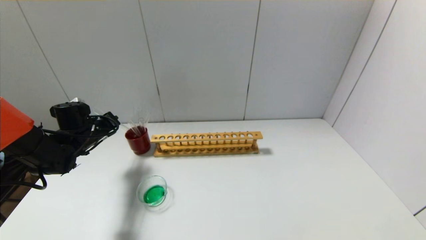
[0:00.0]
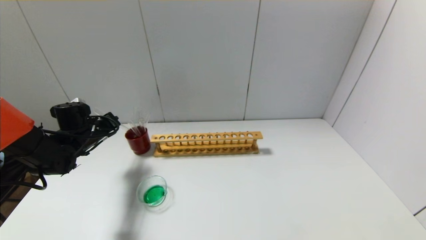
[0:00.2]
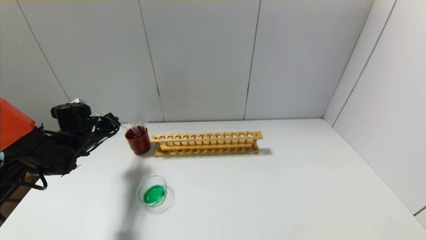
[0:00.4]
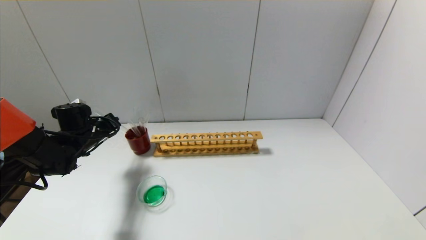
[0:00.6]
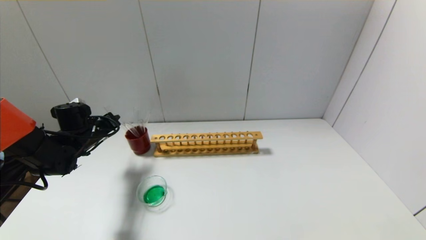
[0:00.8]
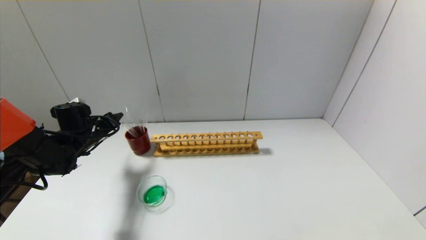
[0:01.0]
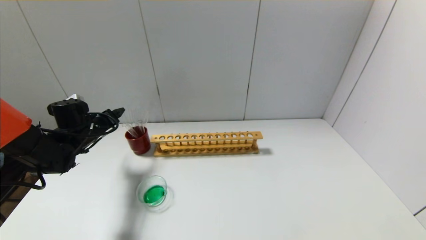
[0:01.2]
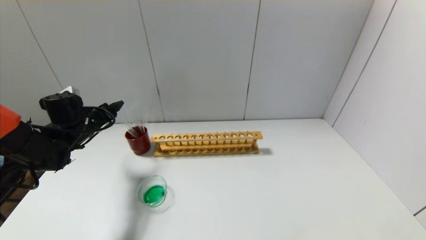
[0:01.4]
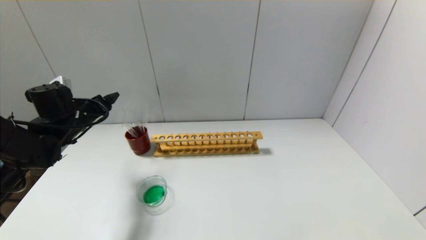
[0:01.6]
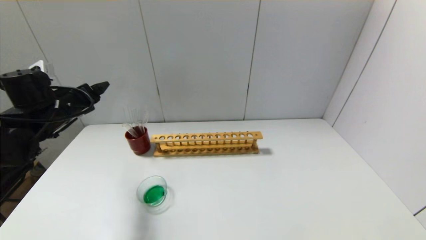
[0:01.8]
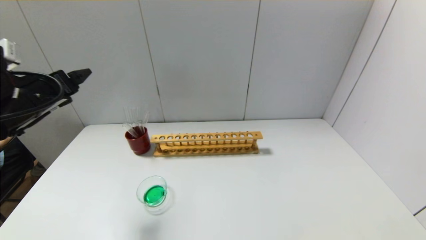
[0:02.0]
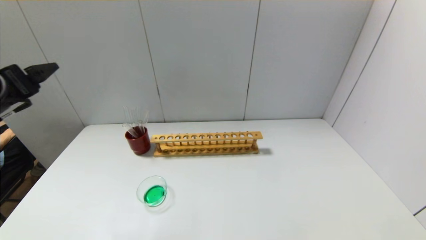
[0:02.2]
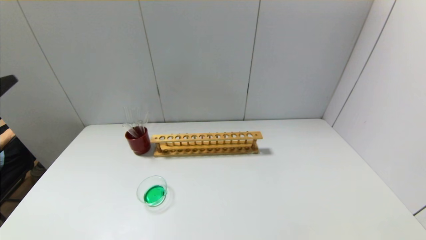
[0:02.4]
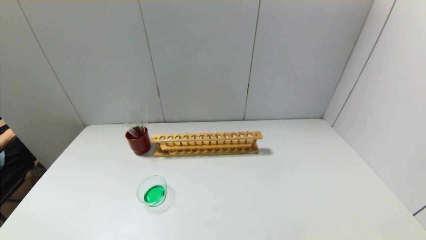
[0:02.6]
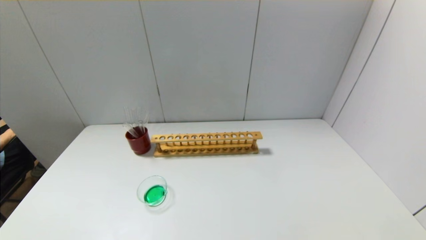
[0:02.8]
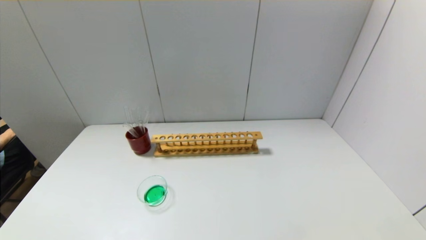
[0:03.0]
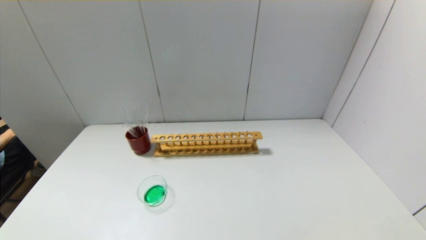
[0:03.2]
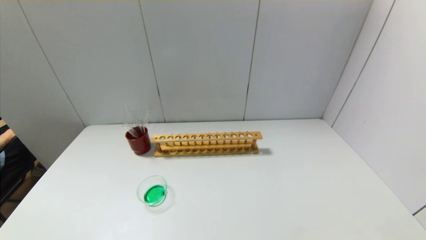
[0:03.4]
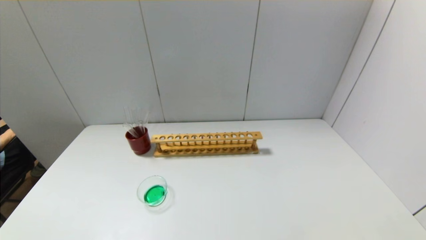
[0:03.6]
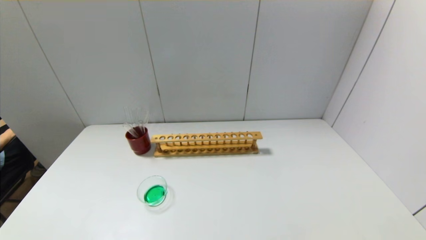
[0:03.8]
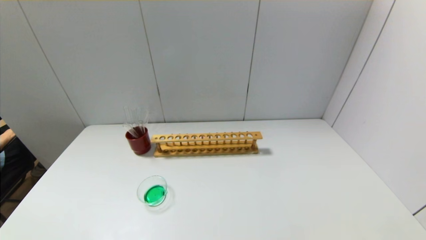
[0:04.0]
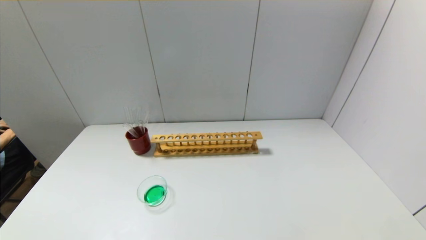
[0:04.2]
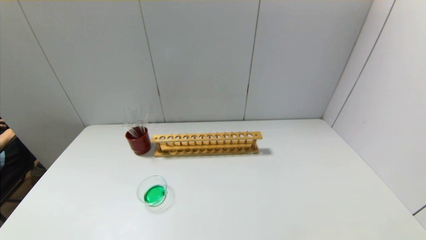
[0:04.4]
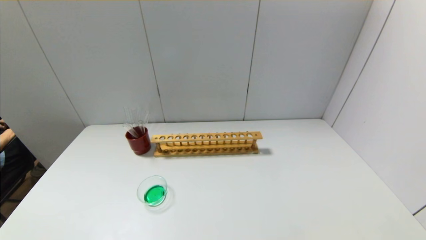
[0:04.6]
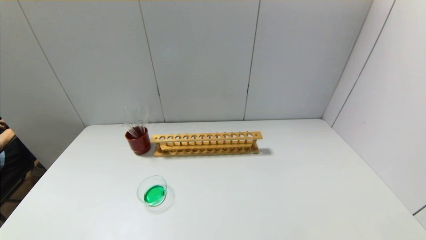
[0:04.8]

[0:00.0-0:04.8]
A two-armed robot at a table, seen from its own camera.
0:00.0 to 0:01.6: The left gripper travels upward by about 5 cm, and opens its fingers.
0:01.6 to 0:03.2: The left gripper travels backward by roughly 40 cm.

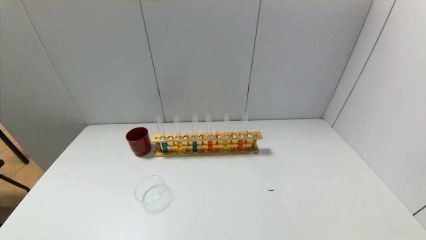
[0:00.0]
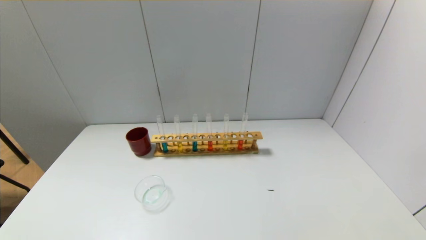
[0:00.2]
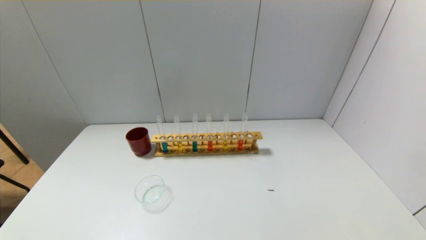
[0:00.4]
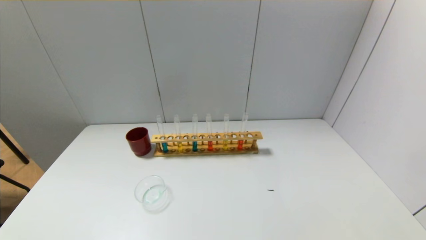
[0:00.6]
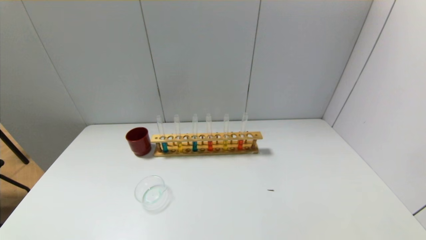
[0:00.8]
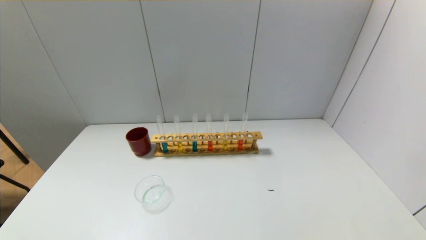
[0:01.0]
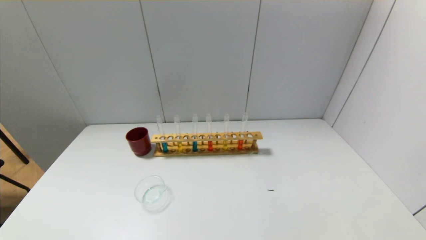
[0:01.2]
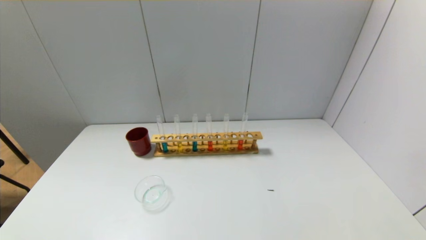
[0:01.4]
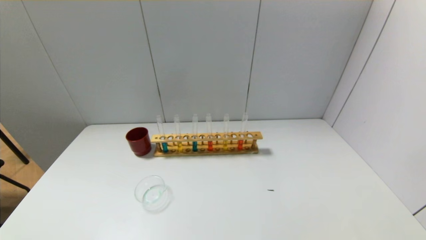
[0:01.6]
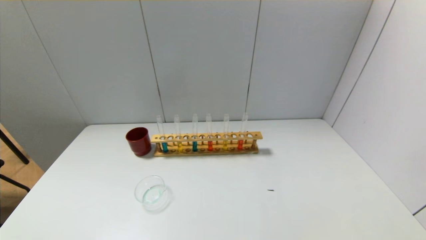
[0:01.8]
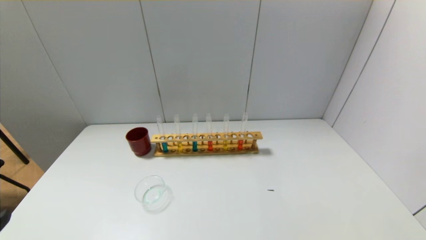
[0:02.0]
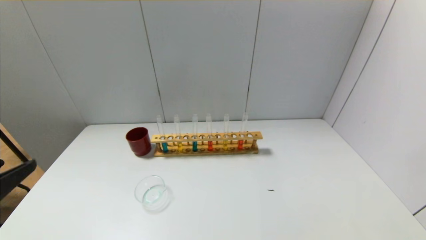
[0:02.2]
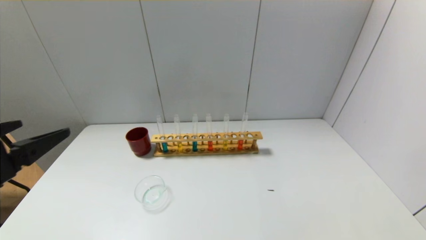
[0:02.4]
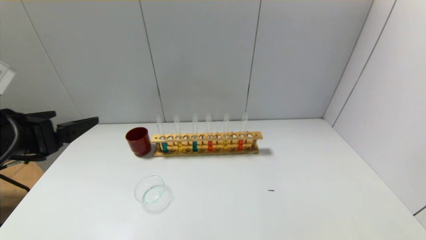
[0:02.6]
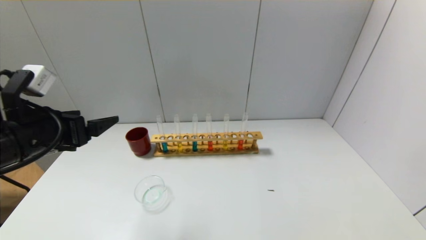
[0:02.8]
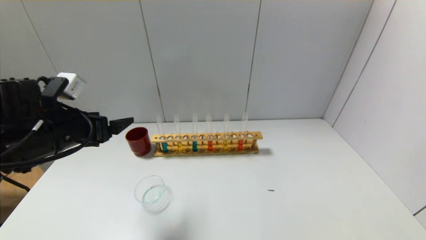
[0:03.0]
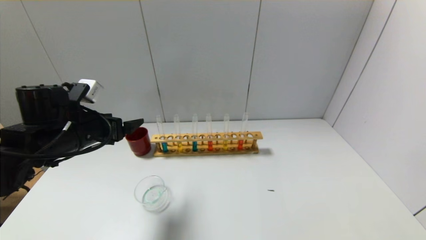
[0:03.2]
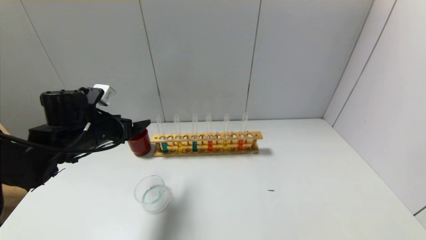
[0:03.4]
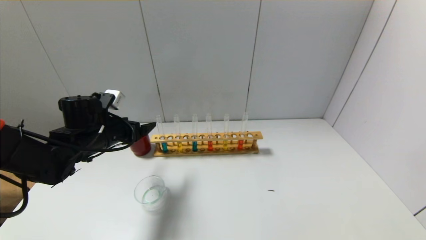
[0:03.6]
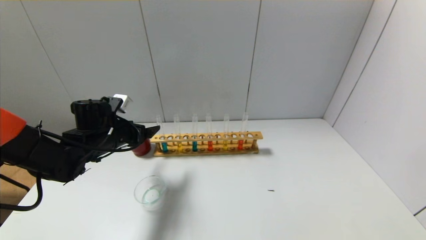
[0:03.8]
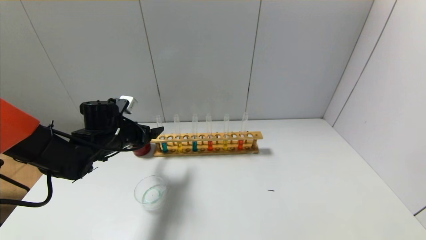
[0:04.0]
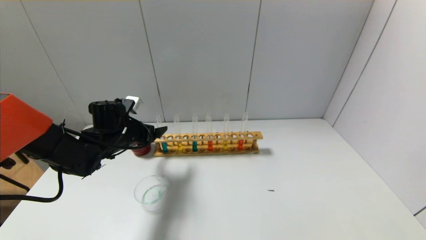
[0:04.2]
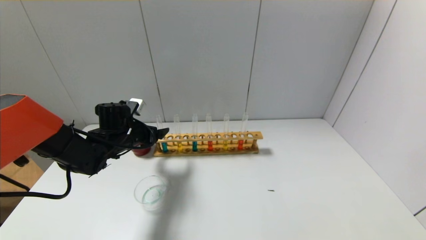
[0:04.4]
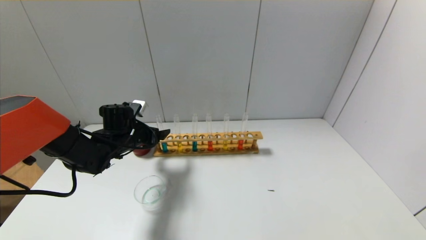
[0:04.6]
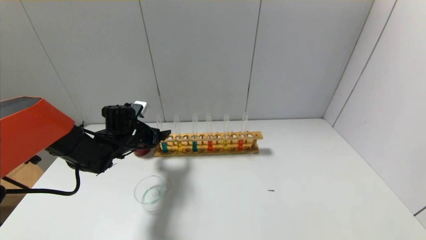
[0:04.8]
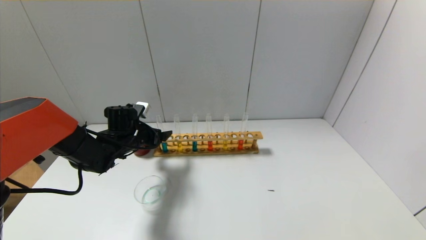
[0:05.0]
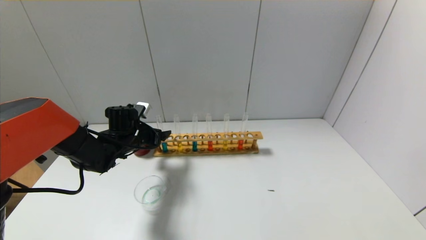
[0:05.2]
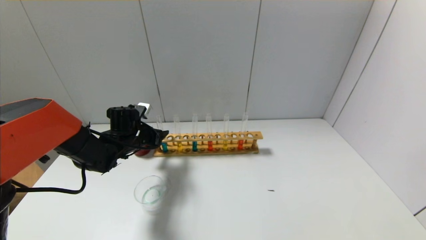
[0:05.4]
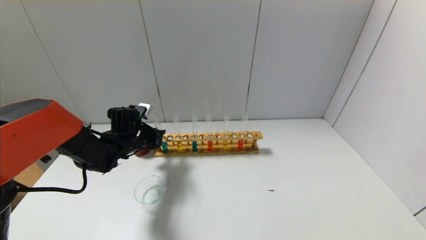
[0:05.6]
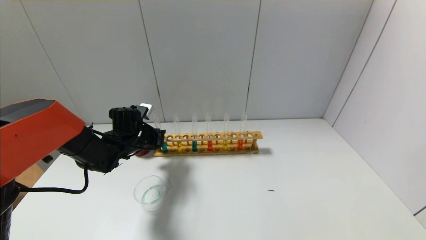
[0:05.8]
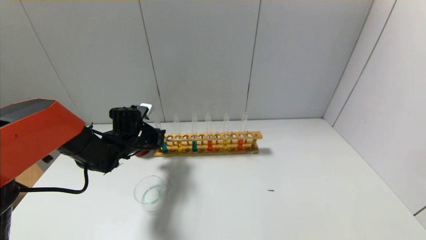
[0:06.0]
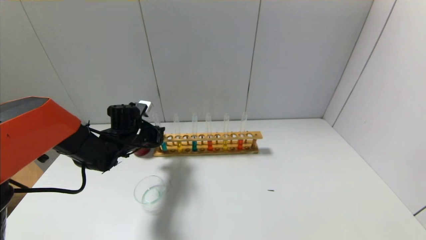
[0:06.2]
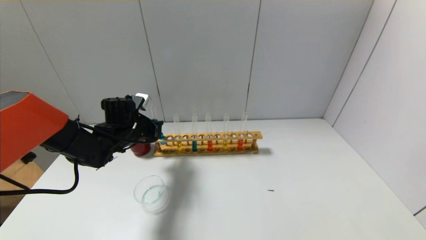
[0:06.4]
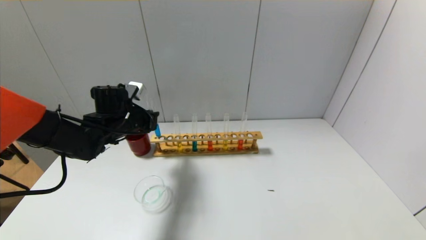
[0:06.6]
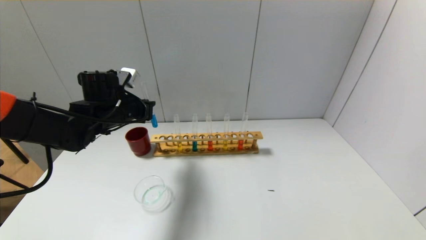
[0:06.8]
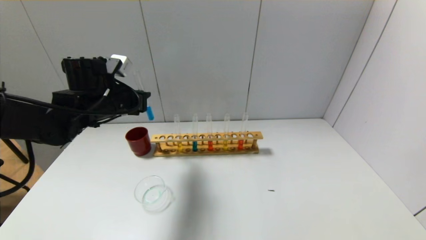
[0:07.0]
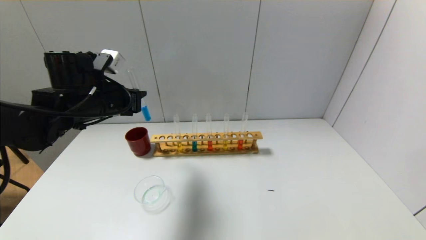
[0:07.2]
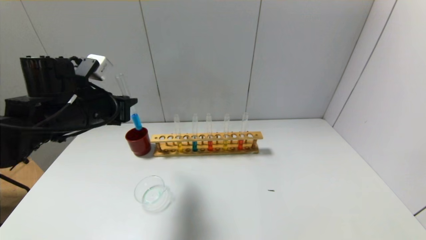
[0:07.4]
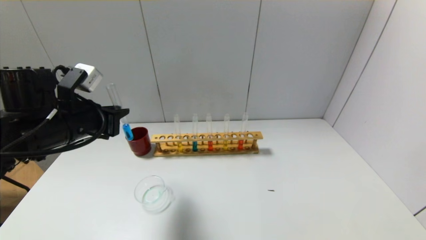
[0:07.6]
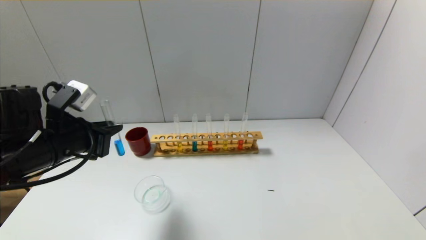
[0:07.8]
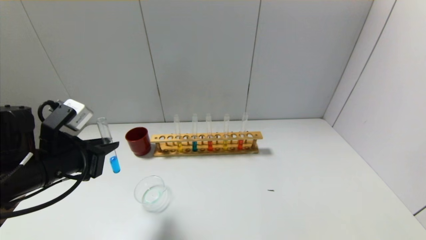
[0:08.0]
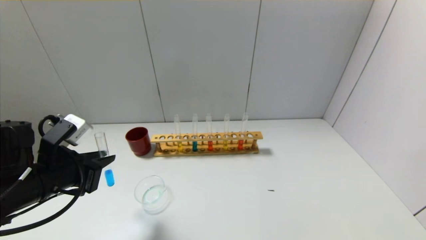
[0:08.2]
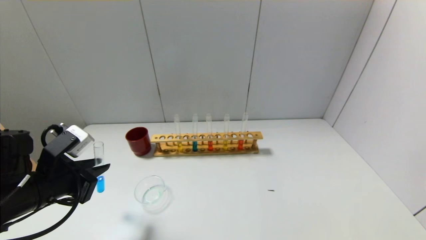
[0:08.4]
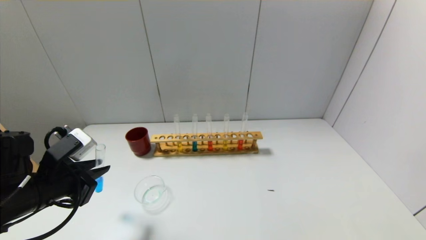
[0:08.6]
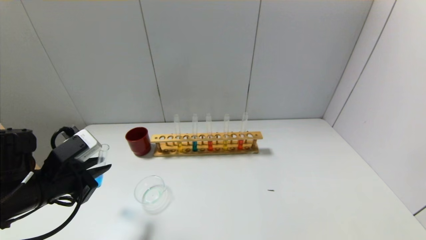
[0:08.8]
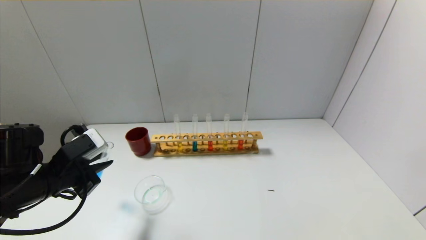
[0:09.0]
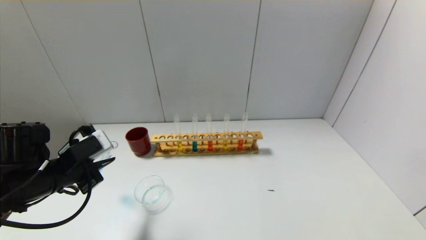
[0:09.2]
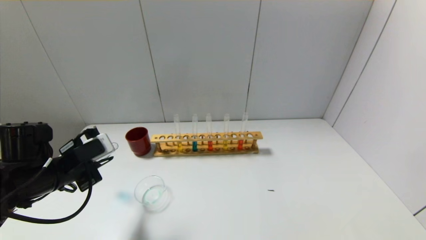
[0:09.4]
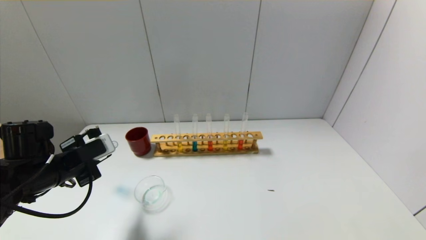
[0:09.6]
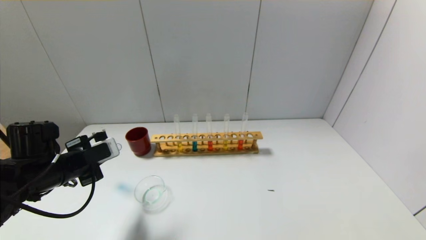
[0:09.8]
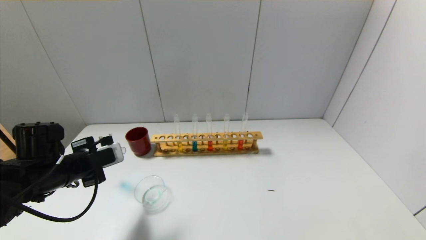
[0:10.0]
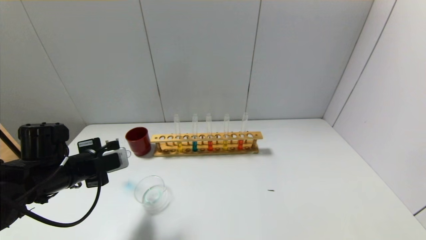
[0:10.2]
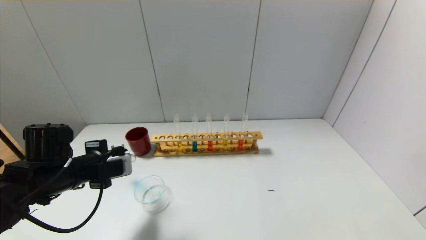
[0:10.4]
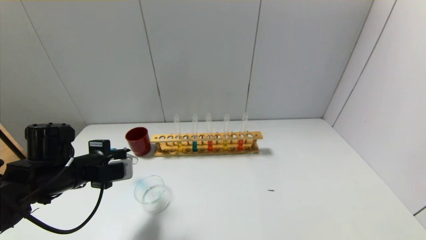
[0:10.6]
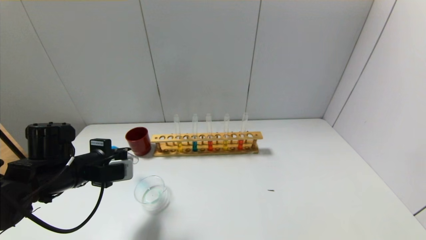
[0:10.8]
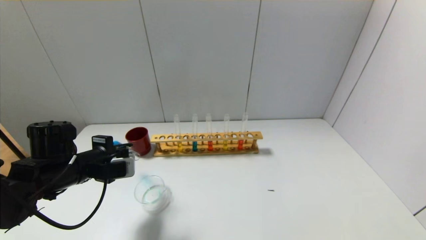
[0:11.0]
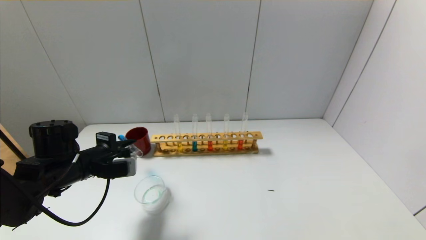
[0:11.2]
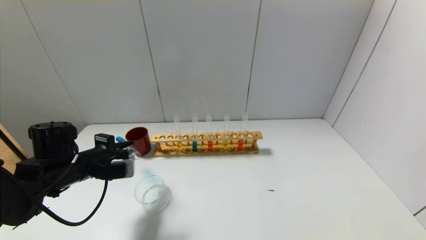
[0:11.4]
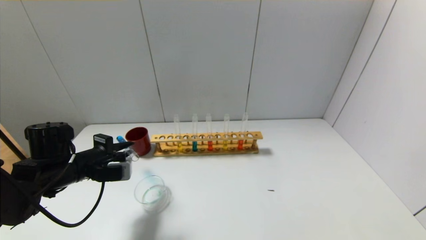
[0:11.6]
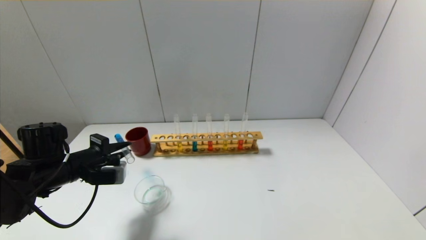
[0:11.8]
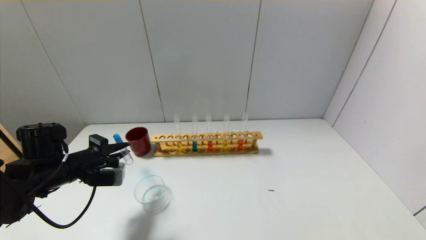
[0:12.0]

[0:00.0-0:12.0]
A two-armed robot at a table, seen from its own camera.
Step, 0:00.0 to 0:05.8: Grasp the blue reagent with the left gripper.
0:01.6 to 0:03.0: The left gripper is displaced forward by about 30 cm.
0:03.0 to 0:04.4: The left gripper is displaced forward and downward by some 15 cm.
0:04.4 to 0:06.0: The left gripper closes its fingers.
0:06.0 to 0:07.6: The left gripper moves backward and upward, roughly 20 cm.
0:07.6 to 0:09.0: The left gripper goes some 5 cm downward.
